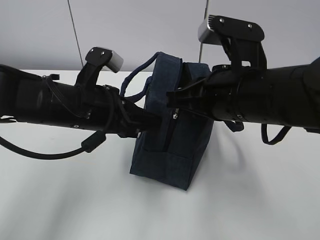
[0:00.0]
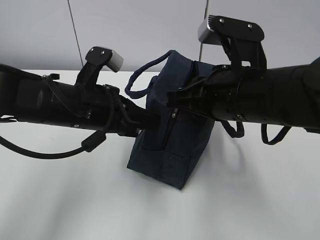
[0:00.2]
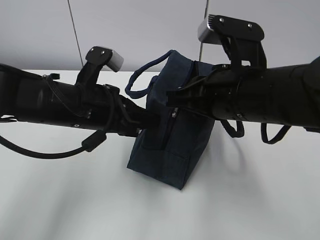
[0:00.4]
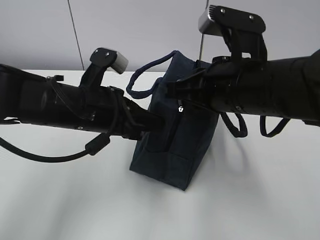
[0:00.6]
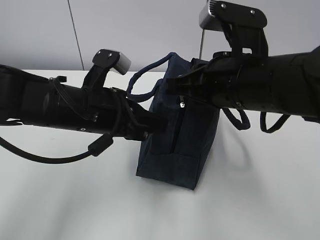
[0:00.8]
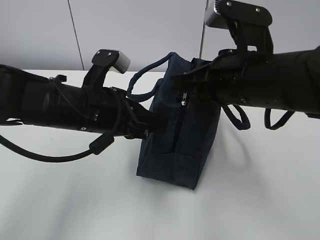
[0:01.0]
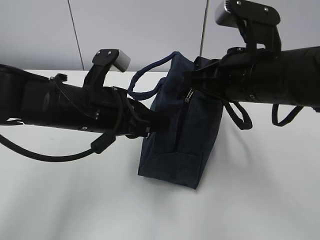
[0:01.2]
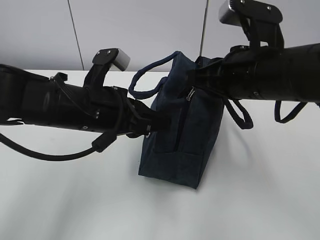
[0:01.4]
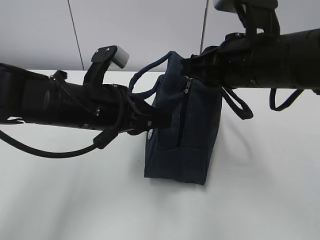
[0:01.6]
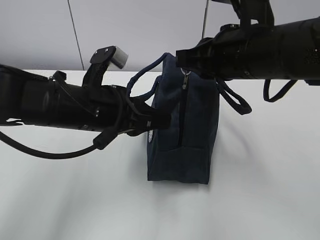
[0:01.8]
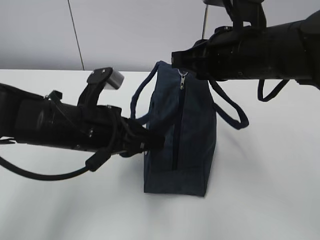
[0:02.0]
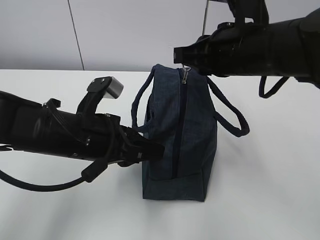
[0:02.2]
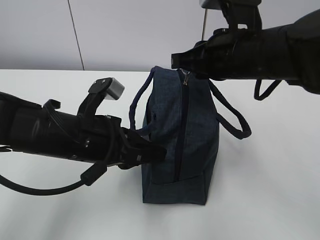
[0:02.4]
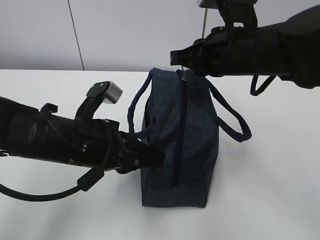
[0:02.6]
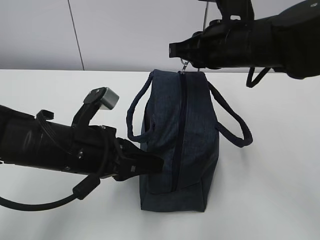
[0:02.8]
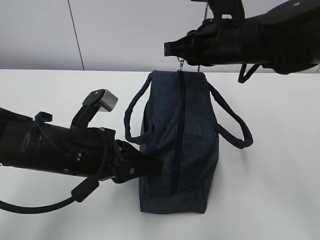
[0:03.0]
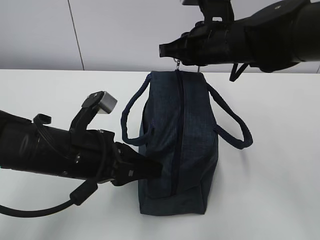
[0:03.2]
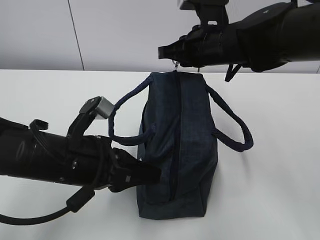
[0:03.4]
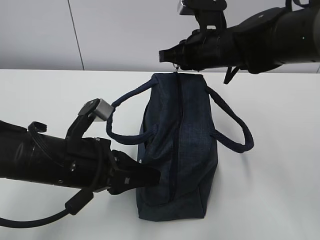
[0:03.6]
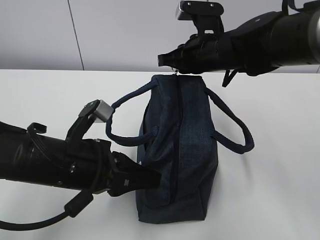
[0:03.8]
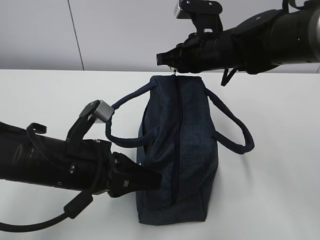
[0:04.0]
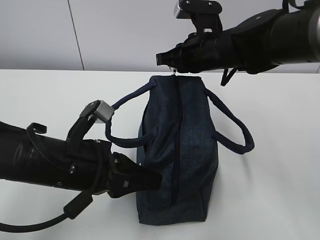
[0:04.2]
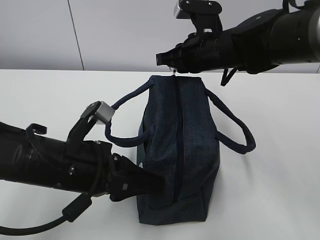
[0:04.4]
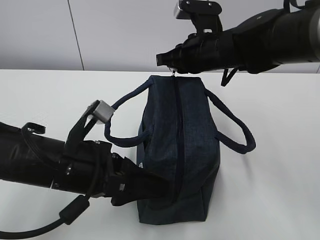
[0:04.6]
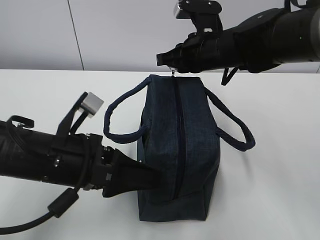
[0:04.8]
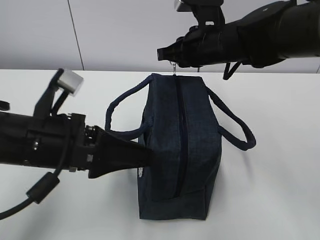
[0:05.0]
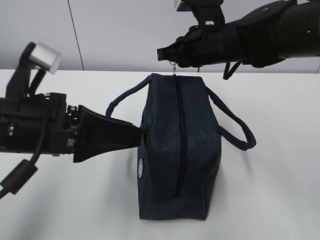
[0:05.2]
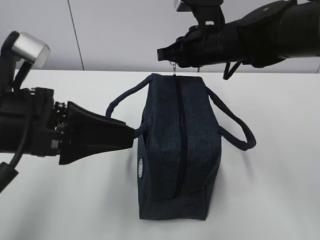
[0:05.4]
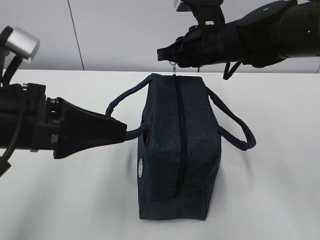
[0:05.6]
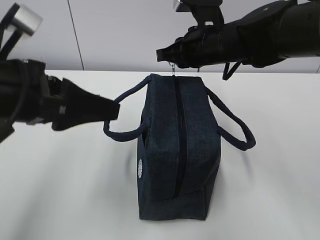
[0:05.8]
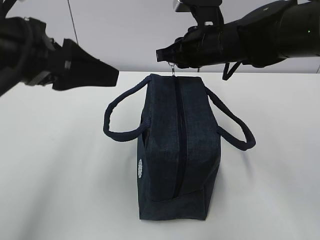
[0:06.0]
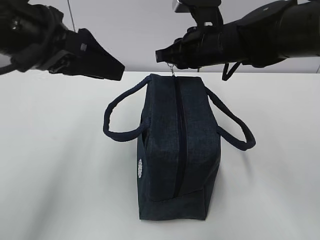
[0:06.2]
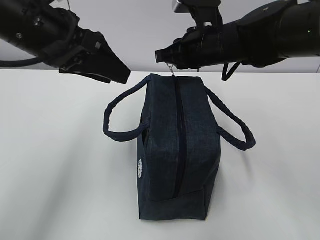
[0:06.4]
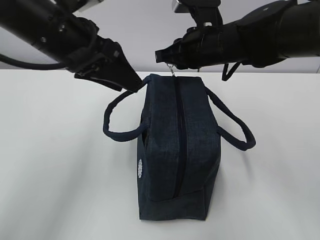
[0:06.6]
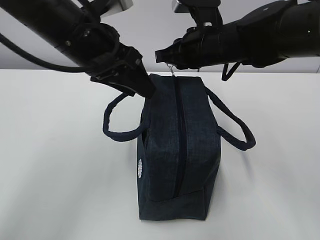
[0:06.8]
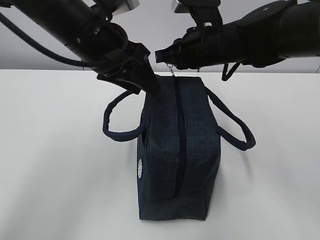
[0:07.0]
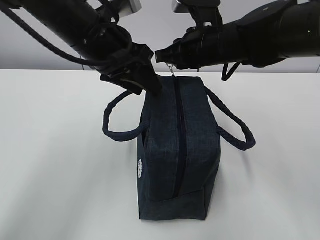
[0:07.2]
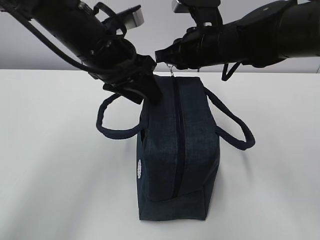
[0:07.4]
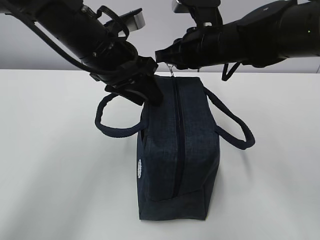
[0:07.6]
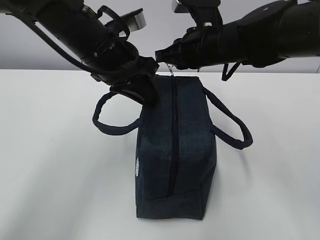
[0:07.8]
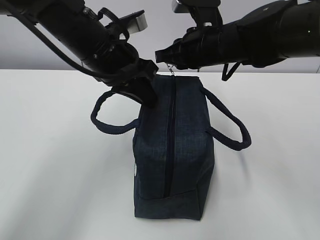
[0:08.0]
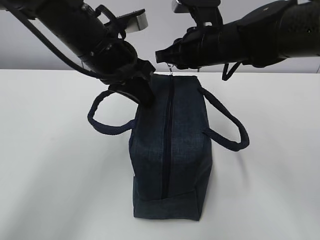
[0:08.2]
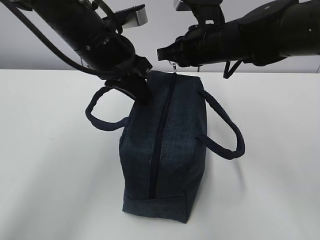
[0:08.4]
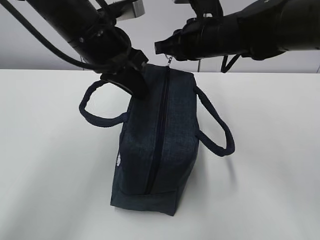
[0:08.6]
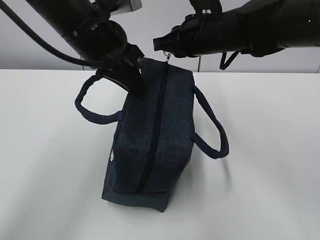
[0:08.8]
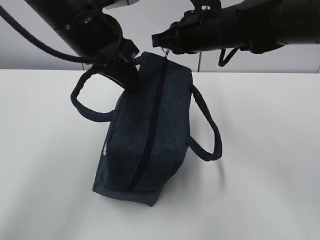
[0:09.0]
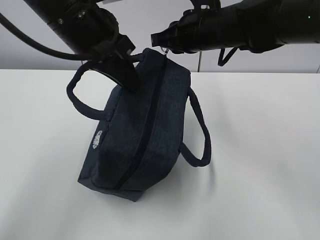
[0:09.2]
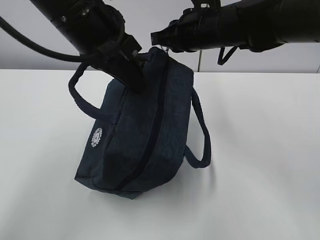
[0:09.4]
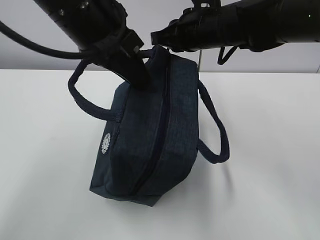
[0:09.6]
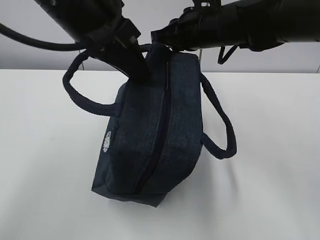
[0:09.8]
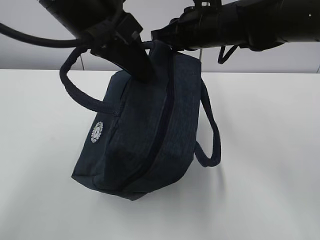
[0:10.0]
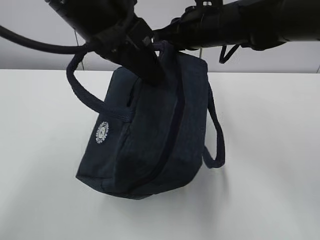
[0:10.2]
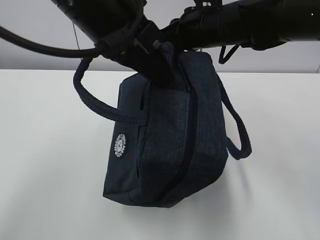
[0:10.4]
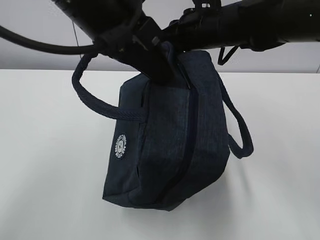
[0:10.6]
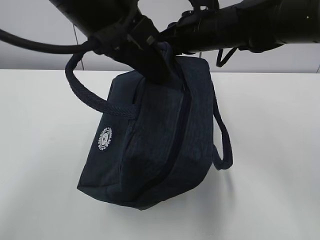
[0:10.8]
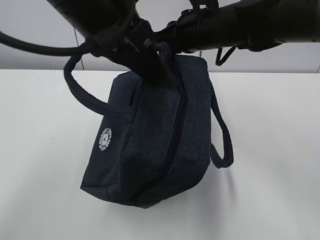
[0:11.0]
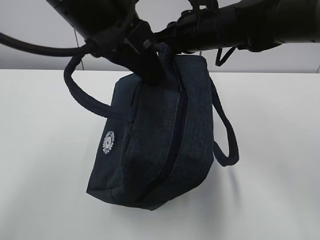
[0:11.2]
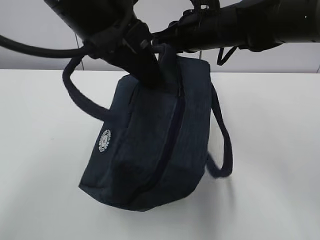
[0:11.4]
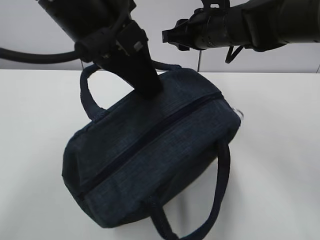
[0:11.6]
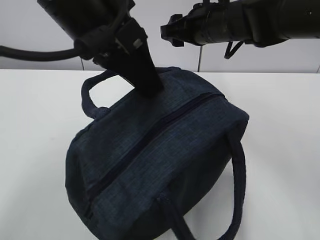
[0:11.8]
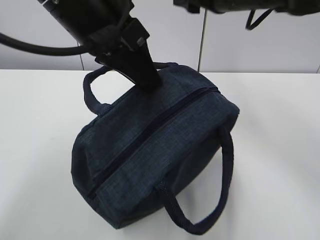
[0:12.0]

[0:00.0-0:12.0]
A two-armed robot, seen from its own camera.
Step, 0:01.4 to 0:03.0: Grab the lunch bag with your left hand.
0:01.6 to 0:03.0: The right gripper is displaced forward by approximately 10 cm. Meanwhile the left gripper changes place by roughly 5 cm.
0:03.0 to 0:04.4: The right gripper moves roughly 5 cm. The left gripper opens.
0:04.4 to 0:06.0: The left gripper shifts some 15 cm upward, and opens.
0:06.0 to 0:07.6: The left gripper goes about 15 cm forward, to the right and downward.
0:07.6 to 0:09.0: The left gripper shifts by some 5 cm, and closes.
0:09.0 to 0:10.4: The left gripper moves backward, approximately 5 cm.
0:10.4 to 0:12.0: The right gripper moves upward, about 5 cm, and opens its fingers.

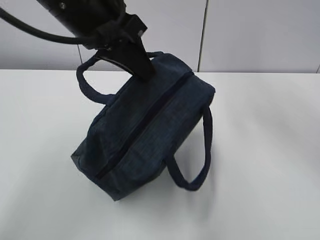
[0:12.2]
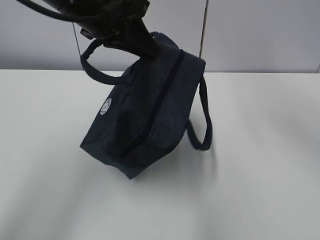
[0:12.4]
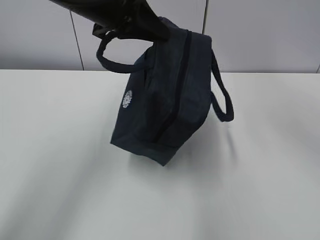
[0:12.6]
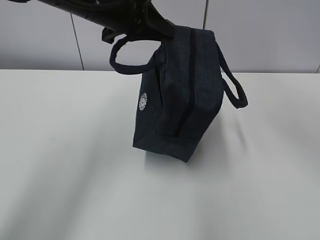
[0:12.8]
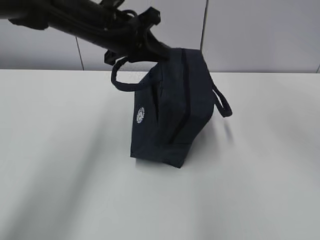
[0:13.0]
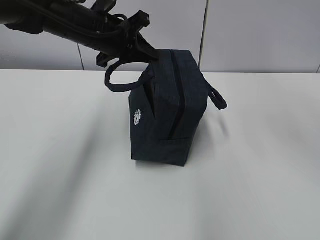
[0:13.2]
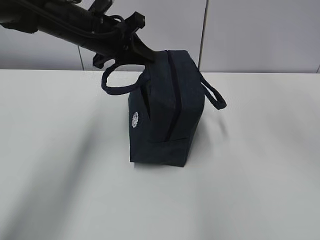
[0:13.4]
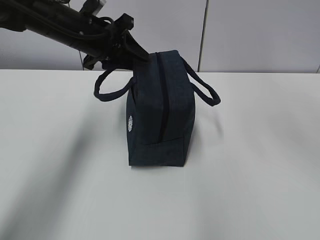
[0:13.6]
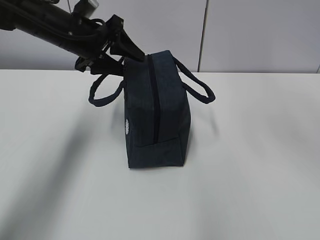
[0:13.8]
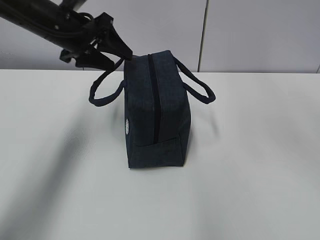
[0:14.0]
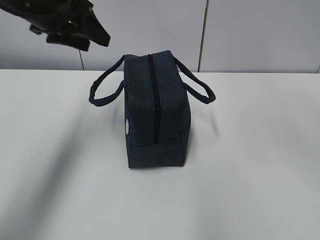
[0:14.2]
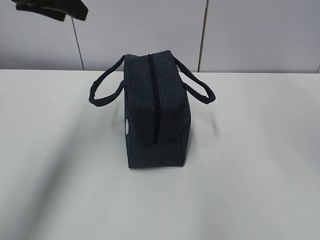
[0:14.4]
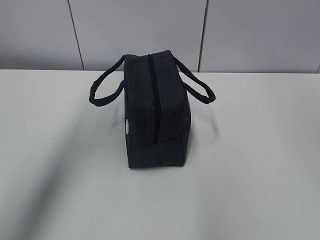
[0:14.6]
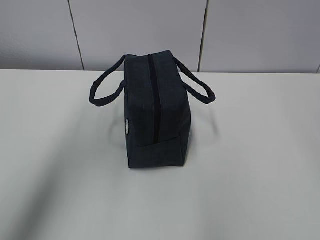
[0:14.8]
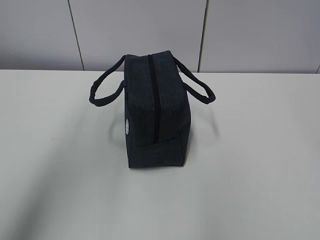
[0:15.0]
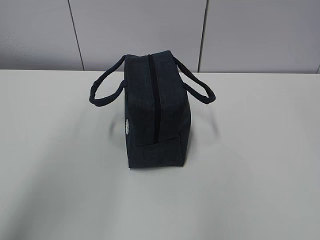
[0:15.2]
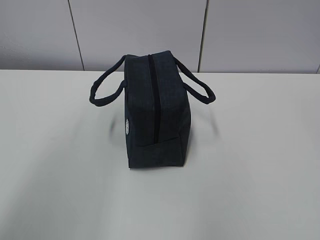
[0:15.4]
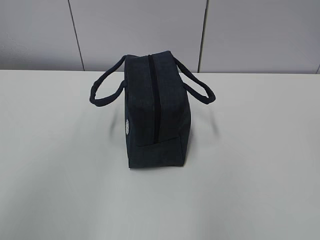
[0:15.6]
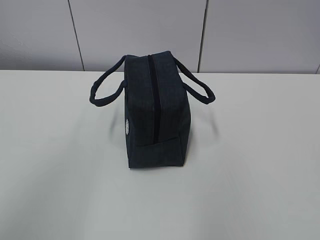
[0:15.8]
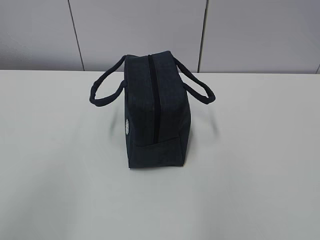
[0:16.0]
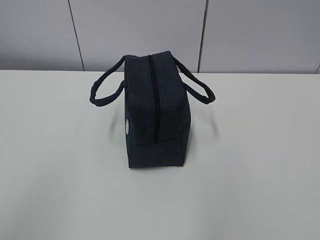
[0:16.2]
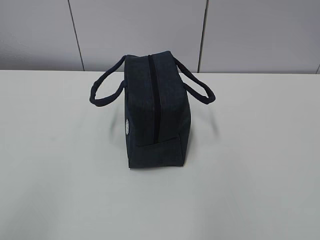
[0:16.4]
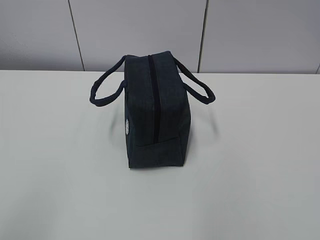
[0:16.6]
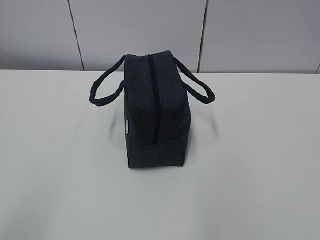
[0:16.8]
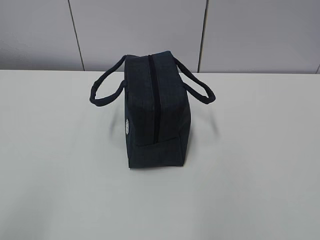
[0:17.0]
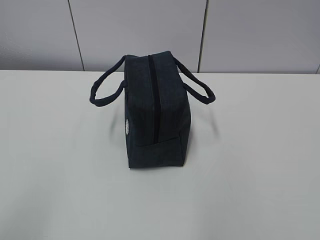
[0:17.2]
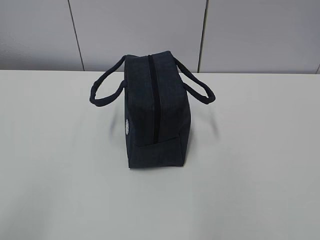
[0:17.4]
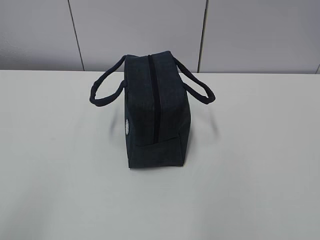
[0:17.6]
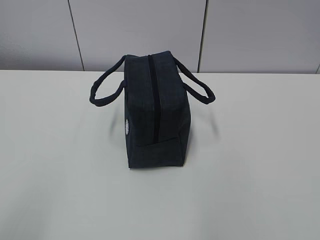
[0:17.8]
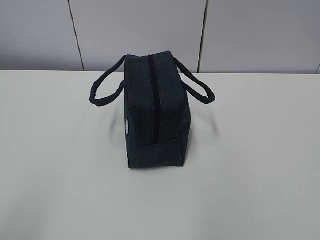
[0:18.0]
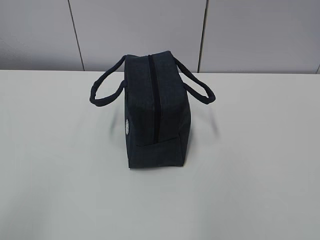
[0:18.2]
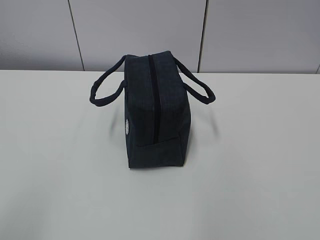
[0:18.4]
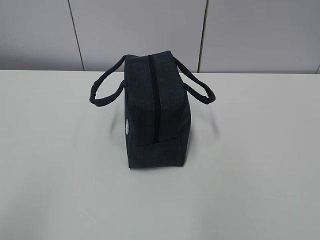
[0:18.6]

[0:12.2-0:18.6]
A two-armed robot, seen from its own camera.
0:12.2 to 0:13.8: The left gripper goes about 15 cm forward, downward and to the left, and opens its fingers.
0:13.8 to 0:15.4: The left gripper moves backward and upward, roughly 35 cm, while the right gripper goes roughly 25 cm backward.
0:15.4 to 0:17.0: The left gripper goes some 25 cm downward and backward.
